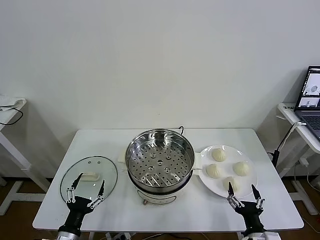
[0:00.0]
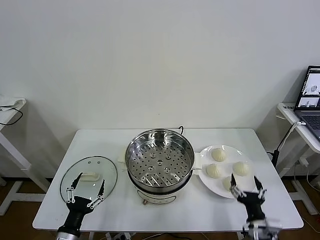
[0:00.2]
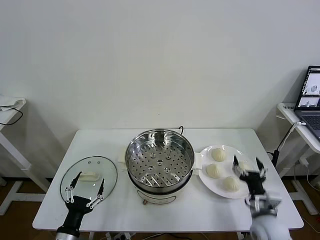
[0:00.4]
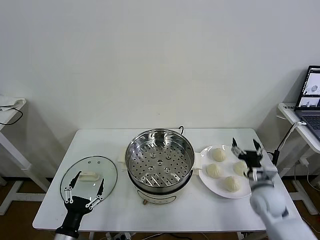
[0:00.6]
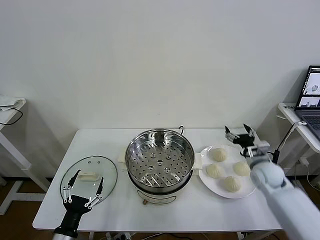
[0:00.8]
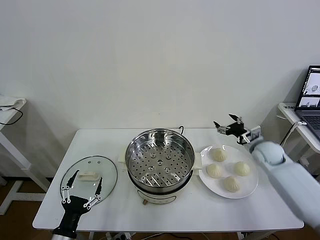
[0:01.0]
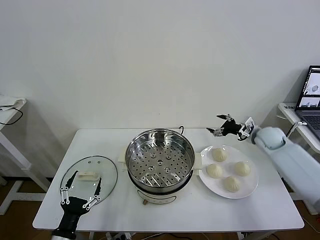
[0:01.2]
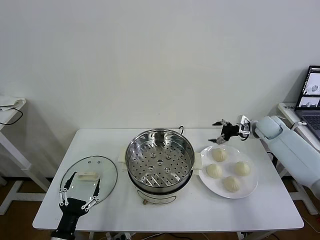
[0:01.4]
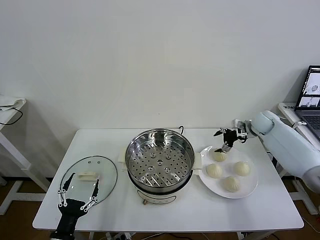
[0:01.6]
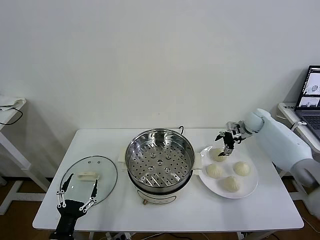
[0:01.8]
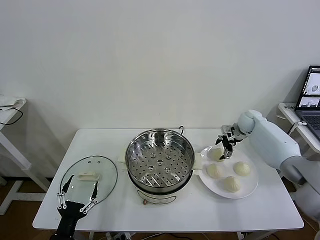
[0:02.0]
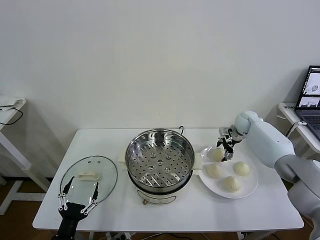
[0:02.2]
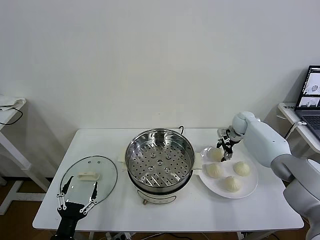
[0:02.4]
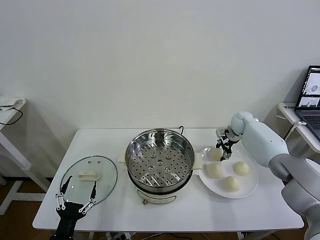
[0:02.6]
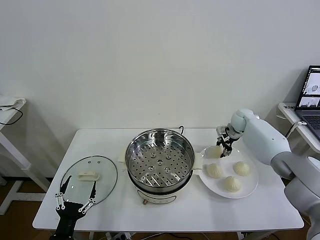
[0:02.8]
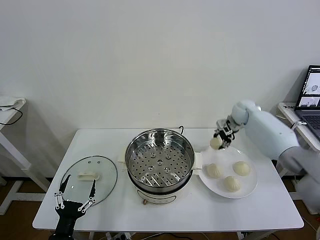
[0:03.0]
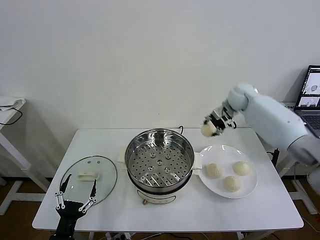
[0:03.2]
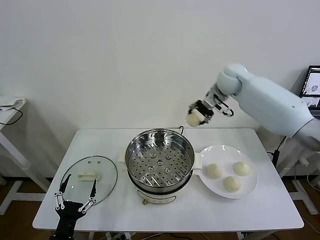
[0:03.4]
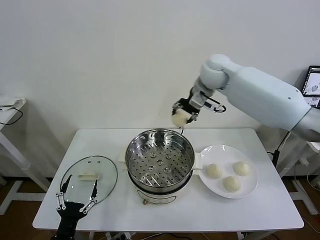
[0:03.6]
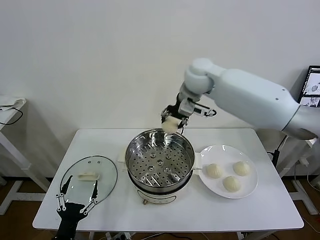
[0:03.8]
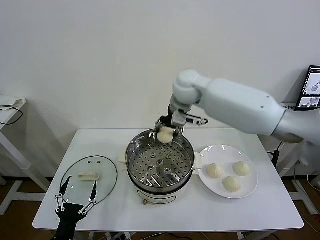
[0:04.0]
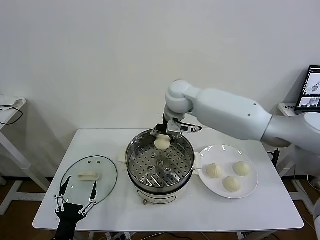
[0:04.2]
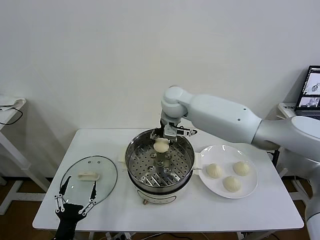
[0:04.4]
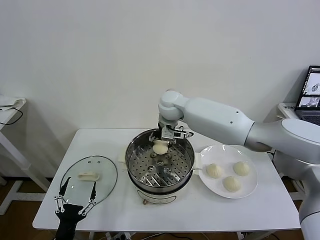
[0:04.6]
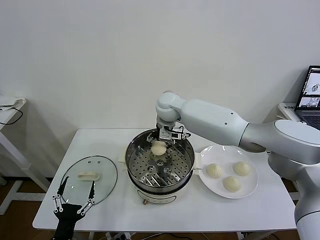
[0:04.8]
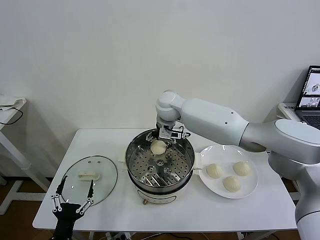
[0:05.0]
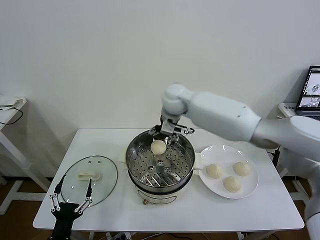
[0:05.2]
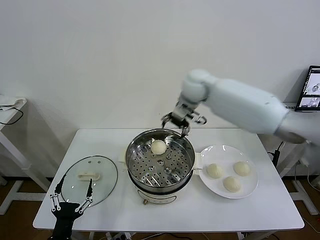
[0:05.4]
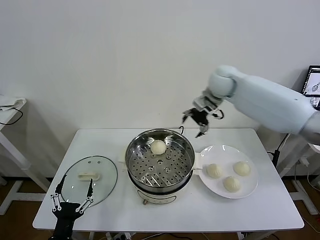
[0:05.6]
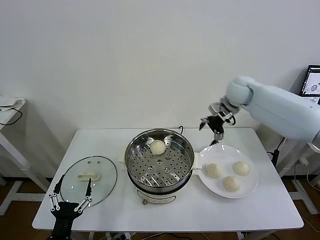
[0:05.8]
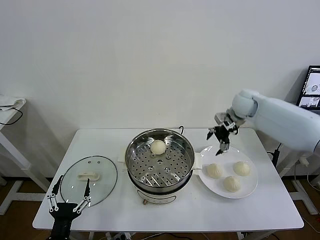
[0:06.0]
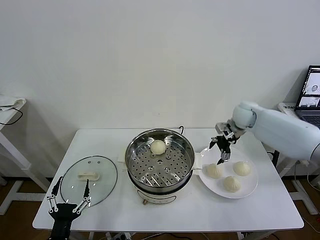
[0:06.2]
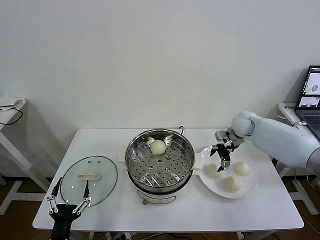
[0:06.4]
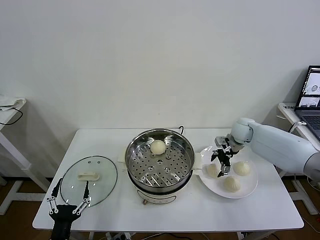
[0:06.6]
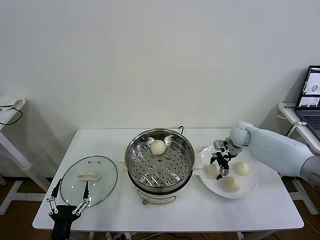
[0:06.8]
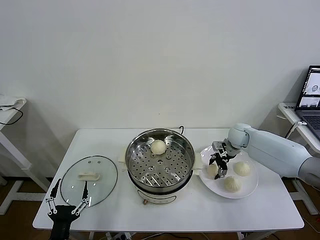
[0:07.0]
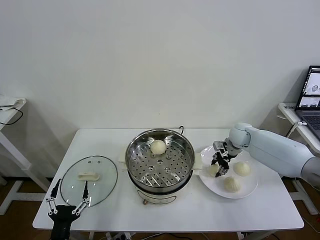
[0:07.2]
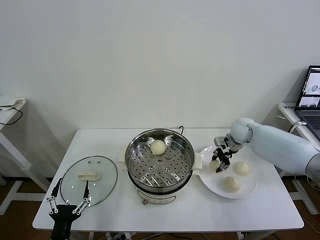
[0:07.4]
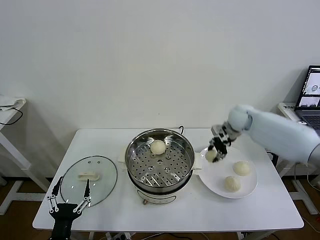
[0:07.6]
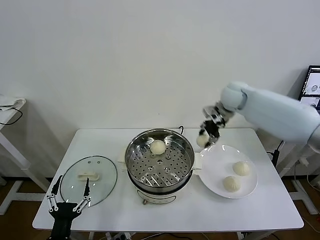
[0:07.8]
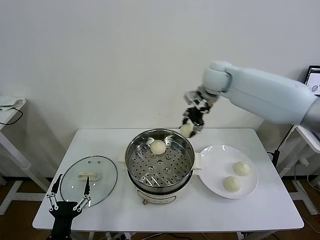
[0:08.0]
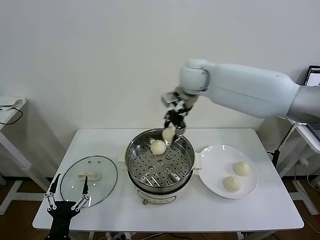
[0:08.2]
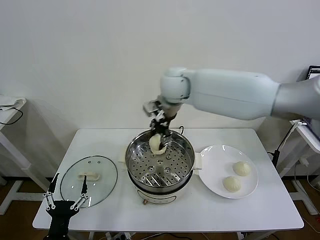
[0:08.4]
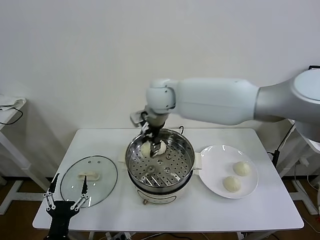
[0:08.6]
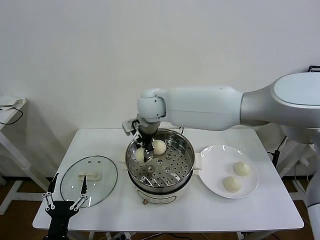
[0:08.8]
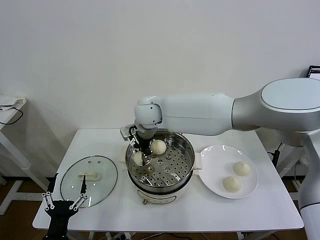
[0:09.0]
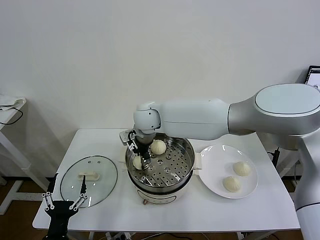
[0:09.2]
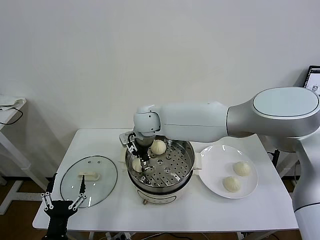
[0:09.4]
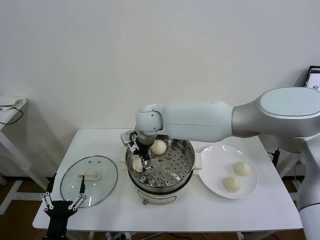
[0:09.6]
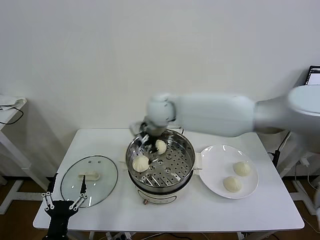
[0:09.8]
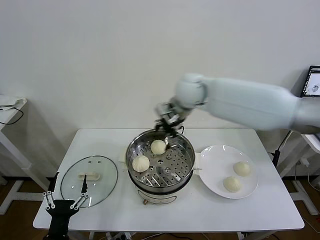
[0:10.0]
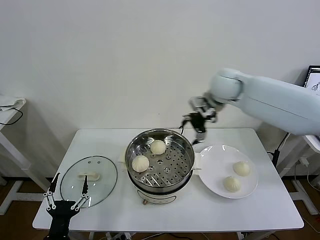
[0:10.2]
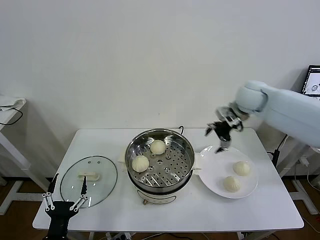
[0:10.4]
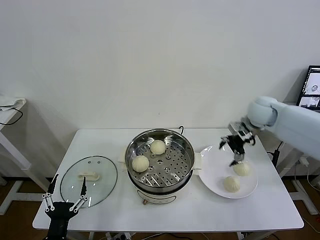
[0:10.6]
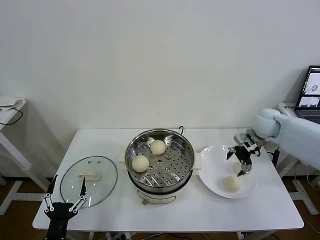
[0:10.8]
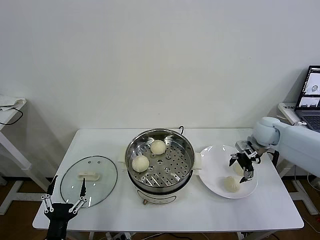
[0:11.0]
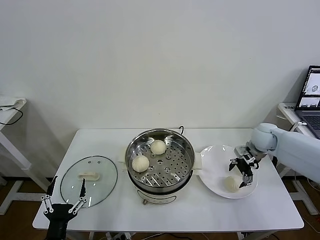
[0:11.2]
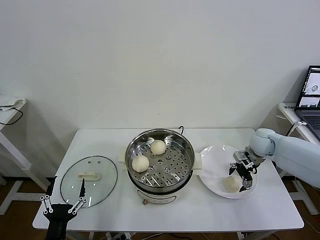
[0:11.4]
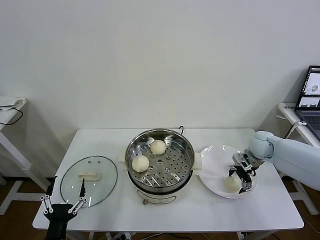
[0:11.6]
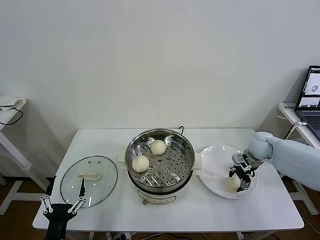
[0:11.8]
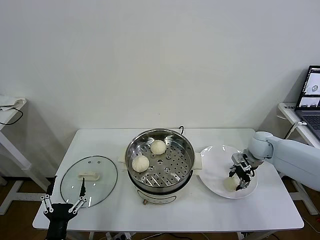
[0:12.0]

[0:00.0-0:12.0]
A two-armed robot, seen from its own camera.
Task of the whole recording: take steamed baozi put them in steamer then cover it.
Step, 0:00.0 to 0:02.4: Grasp the baozi in the plate with right gripper.
Step, 0:02.6 to 0:04.8: Place the baozi on the steamer with right gripper.
Step, 0:05.2 to 0:07.0: Grasp the baozi in the plate with right gripper.
Step, 0:07.2 to 0:09.4: Place the baozi on the steamer with right gripper.
Step, 0:09.6 to 0:12.0: Grasp the baozi in the plate with right gripper.
0:01.6 to 0:03.0: The right gripper travels to the left and upward by approximately 10 cm, and closes.
0:03.0 to 0:04.4: The right gripper travels to the left by about 30 cm.
0:04.4 to 0:06.0: The right gripper goes about 25 cm to the right, and opens up.
0:06.0 to 0:07.6: The right gripper reaches roughly 10 cm downward, then returns, and closes up.
0:07.6 to 0:09.0: The right gripper shifts roughly 30 cm to the left.
0:09.0 to 0:10.4: The right gripper moves to the right, approximately 35 cm, and opens its fingers.
0:10.4 to 0:12.0: The right gripper travels downward and to the right by about 20 cm, and closes.

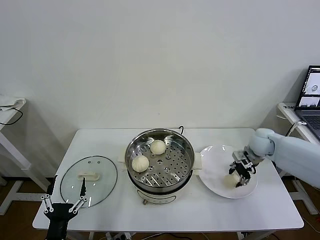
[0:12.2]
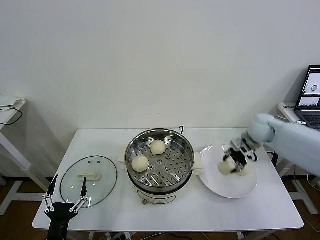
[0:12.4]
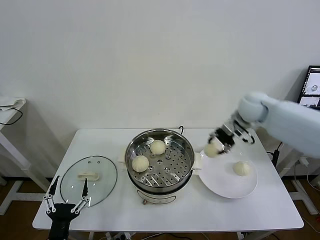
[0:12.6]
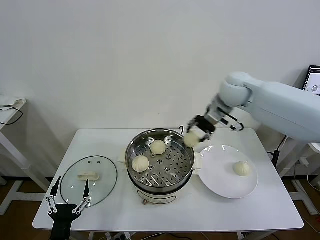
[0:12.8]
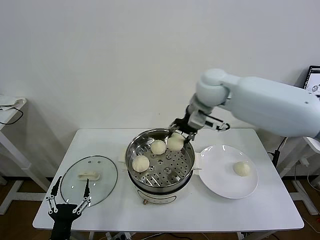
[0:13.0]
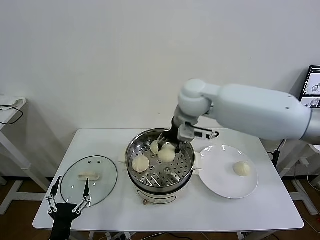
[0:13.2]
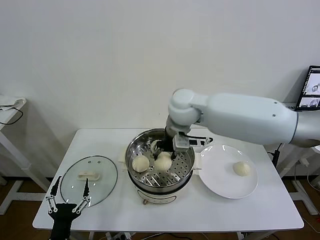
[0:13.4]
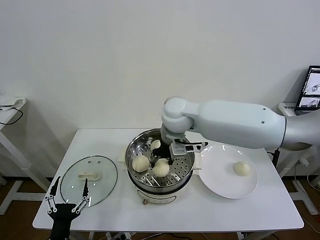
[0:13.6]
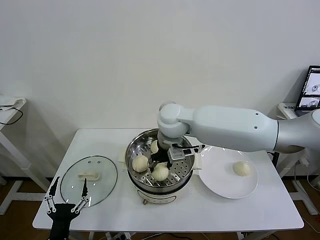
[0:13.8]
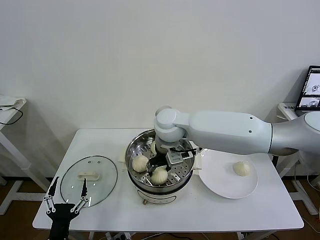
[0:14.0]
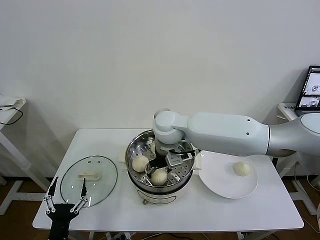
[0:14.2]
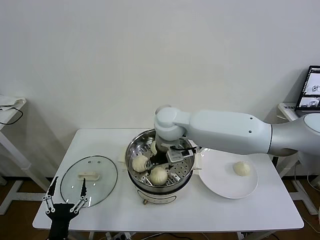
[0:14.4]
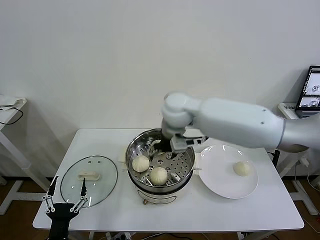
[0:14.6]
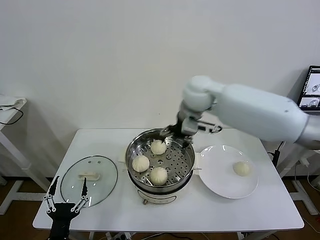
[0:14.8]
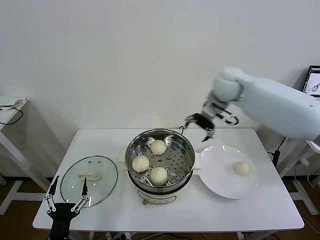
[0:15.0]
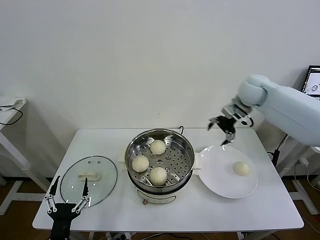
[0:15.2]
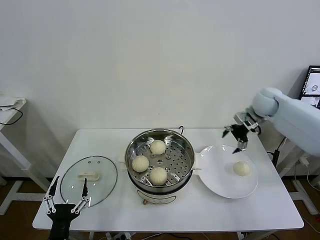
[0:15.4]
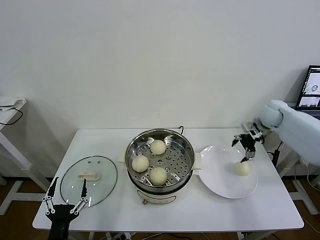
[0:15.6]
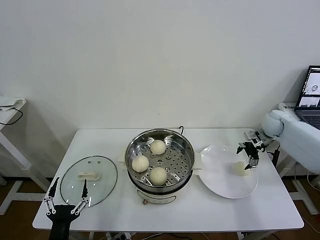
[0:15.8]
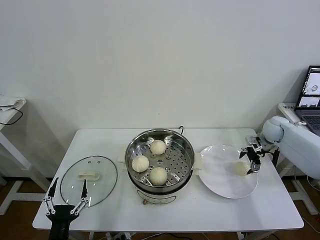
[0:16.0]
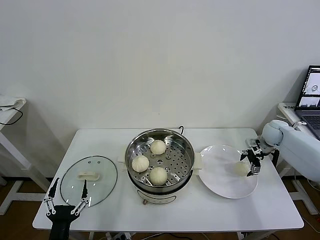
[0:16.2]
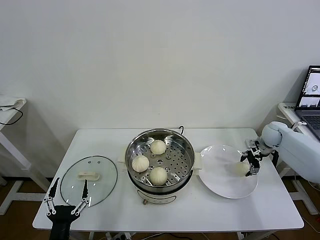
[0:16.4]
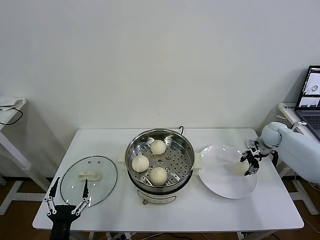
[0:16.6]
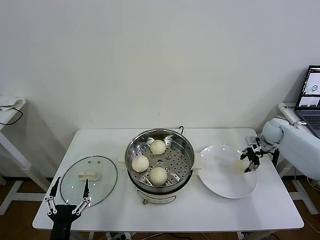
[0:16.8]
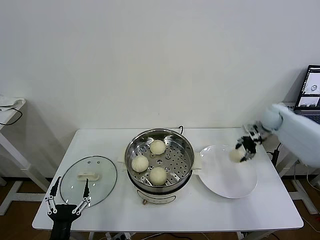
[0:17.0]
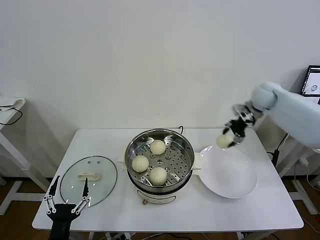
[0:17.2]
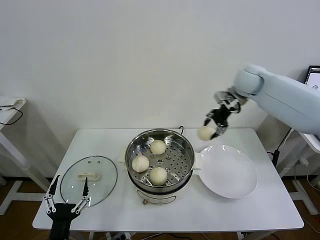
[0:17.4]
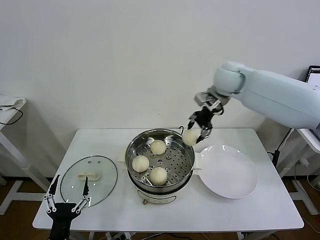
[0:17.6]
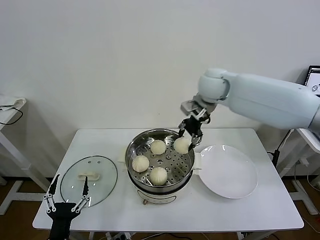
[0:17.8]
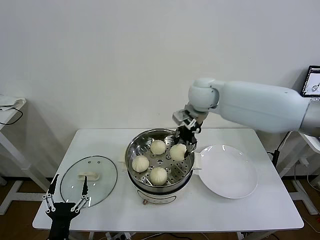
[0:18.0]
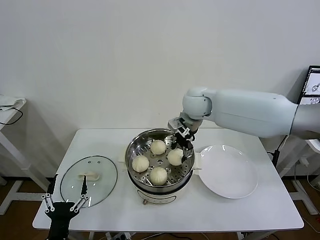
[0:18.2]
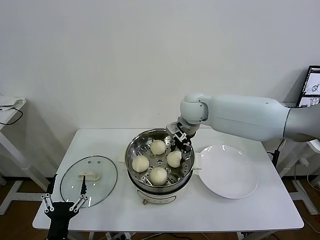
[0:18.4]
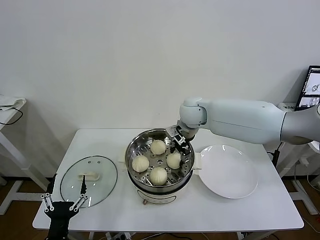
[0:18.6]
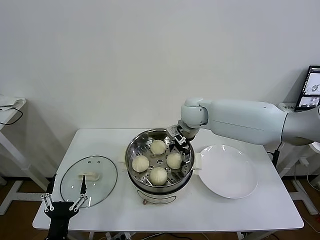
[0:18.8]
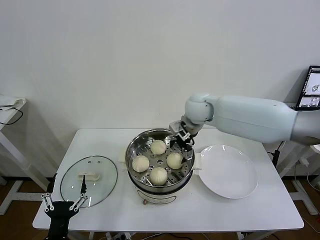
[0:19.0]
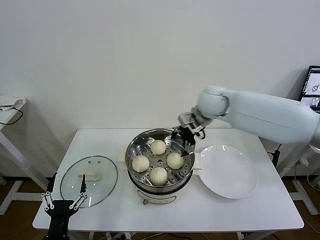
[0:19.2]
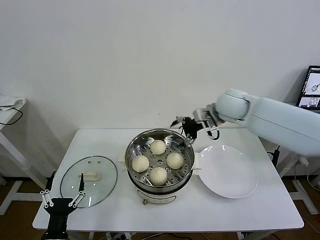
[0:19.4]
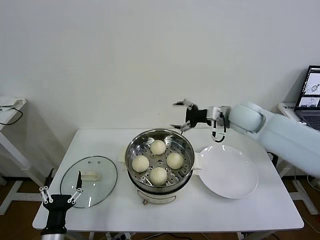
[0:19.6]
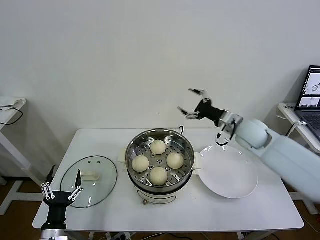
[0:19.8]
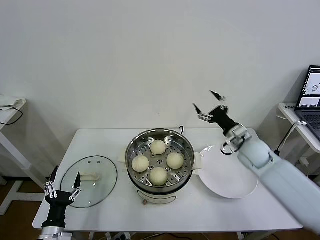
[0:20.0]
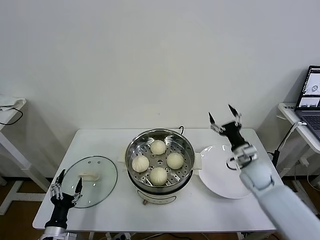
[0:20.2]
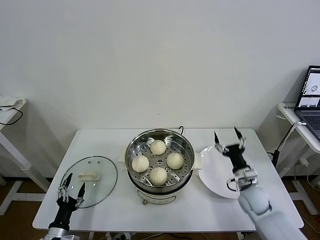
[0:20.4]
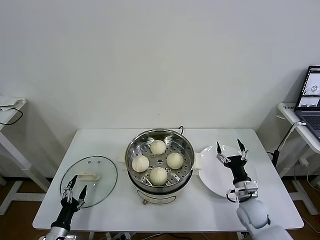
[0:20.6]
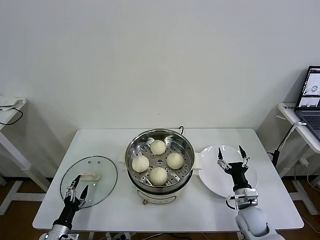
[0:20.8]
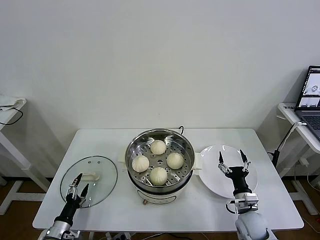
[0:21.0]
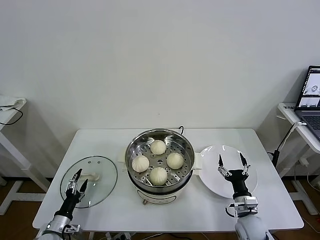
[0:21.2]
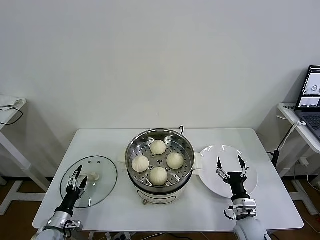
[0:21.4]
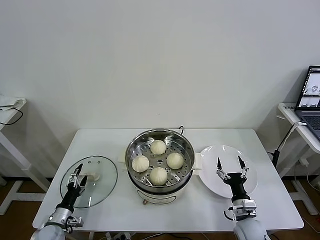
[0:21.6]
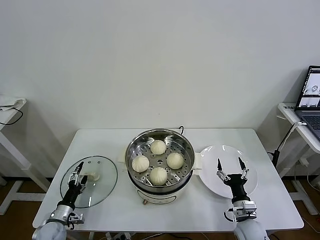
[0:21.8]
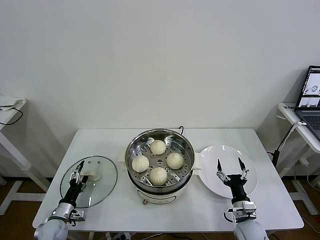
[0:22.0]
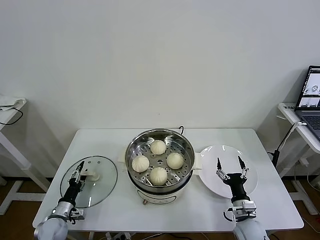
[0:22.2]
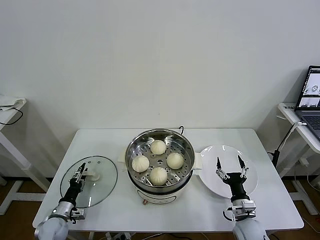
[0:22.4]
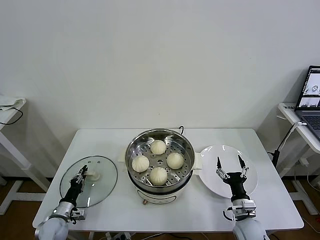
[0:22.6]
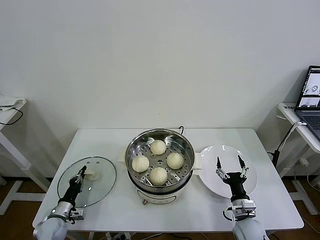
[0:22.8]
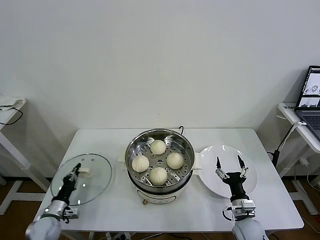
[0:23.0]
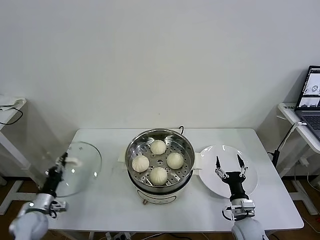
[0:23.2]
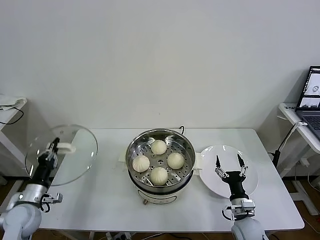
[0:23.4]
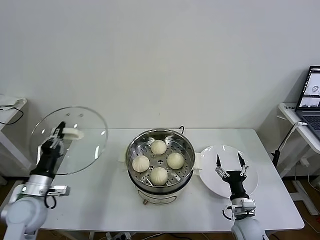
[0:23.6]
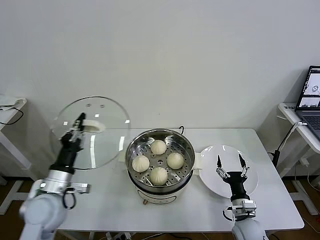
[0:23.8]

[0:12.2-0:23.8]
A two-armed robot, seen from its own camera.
Task of the whole recording: take steamed baozi put them in steamer then cover it.
Step, 0:12.2 to 0:14.2: Place the baozi on the steamer with right gripper.
Step, 0:14.4 to 0:16.6: Grasp the baozi in the plate with right gripper.
Step, 0:16.8 to 0:18.8: Place the baozi on the steamer with right gripper.
Step, 0:19.0 to 0:22.8: Grasp the pot lid with left gripper.
0:12.2 to 0:13.6: The right gripper shifts about 35 cm to the left and upward.
0:13.6 to 0:15.0: The right gripper goes approximately 20 cm to the right and forward, and opens.
0:15.0 to 0:16.6: The right gripper heads to the right and downward, covering some 30 cm, and closes its fingers.
0:16.6 to 0:18.0: The right gripper goes some 40 cm to the left and upward.
0:18.0 to 0:19.4: The right gripper shifts approximately 10 cm to the right, and opens its fingers.
0:19.4 to 0:21.0: The right gripper heads downward and backward, covering roughly 40 cm, while the left gripper travels downward, to the left and forward by approximately 15 cm.
0:21.0 to 0:22.4: The left gripper shifts about 10 cm forward, and closes up.
0:22.4 to 0:23.8: The left gripper travels upward by about 25 cm, and closes its fingers.
